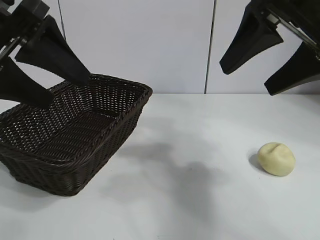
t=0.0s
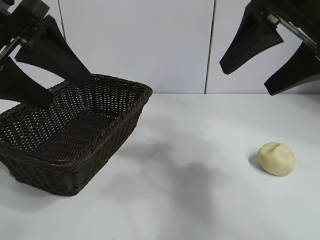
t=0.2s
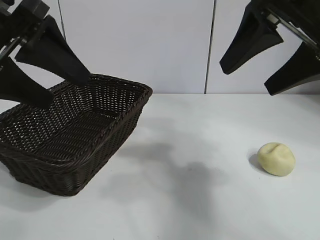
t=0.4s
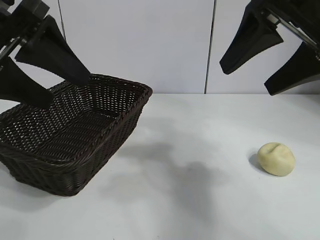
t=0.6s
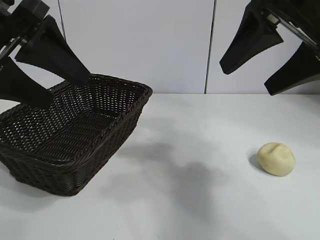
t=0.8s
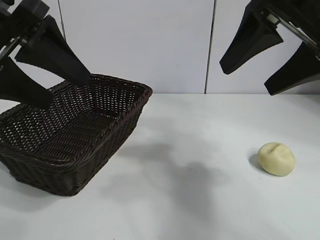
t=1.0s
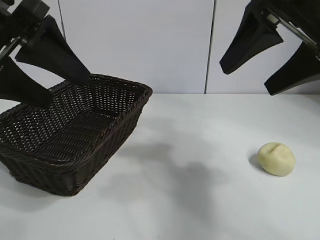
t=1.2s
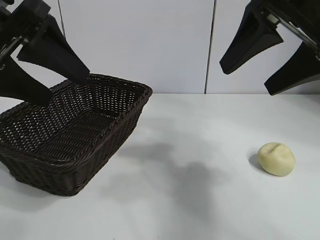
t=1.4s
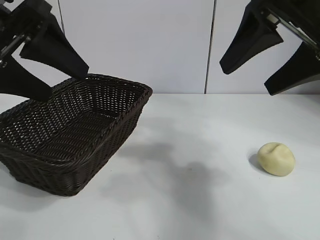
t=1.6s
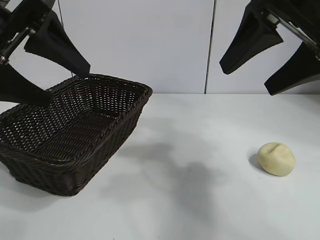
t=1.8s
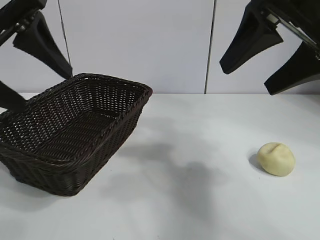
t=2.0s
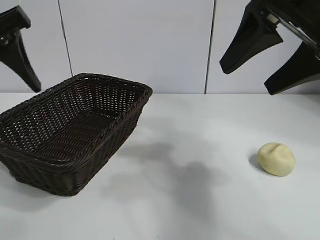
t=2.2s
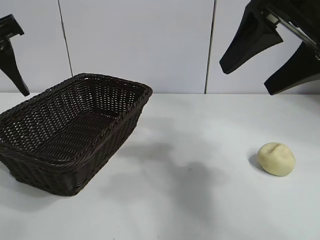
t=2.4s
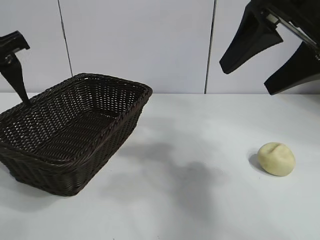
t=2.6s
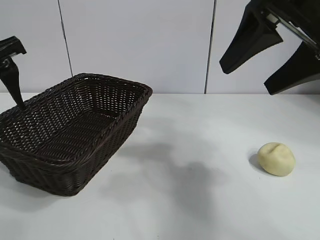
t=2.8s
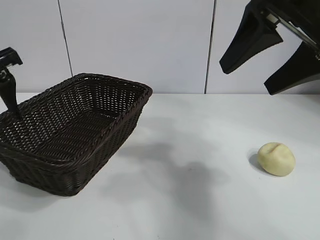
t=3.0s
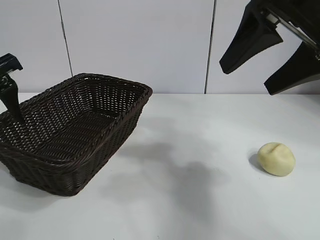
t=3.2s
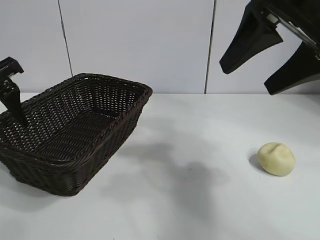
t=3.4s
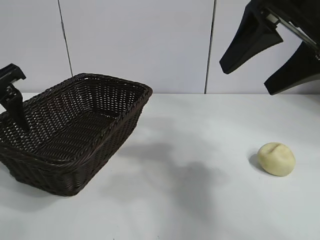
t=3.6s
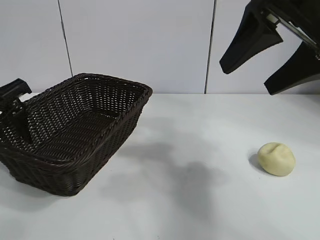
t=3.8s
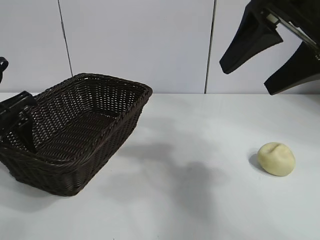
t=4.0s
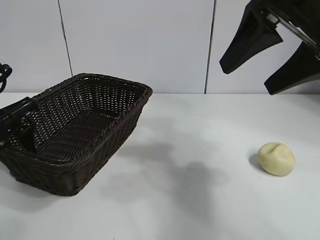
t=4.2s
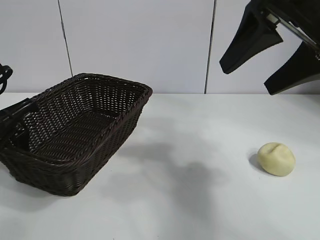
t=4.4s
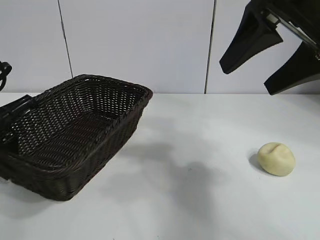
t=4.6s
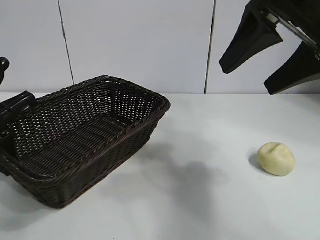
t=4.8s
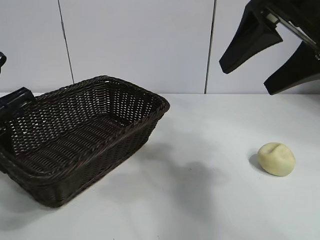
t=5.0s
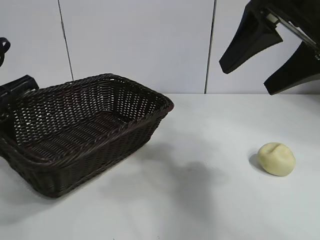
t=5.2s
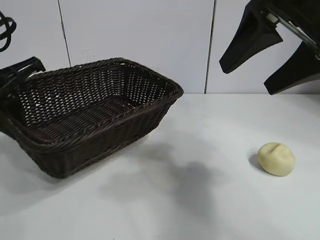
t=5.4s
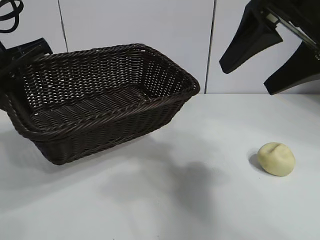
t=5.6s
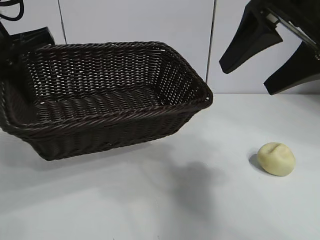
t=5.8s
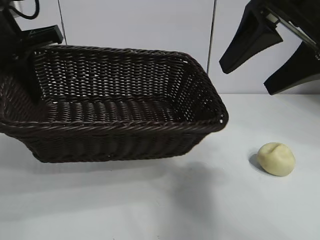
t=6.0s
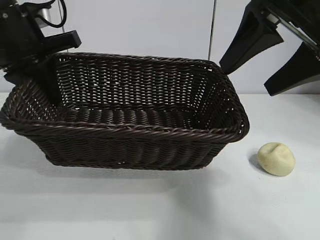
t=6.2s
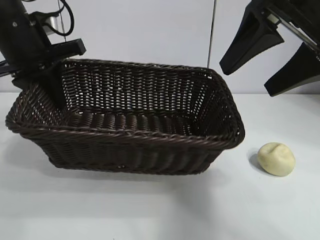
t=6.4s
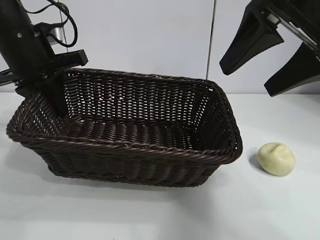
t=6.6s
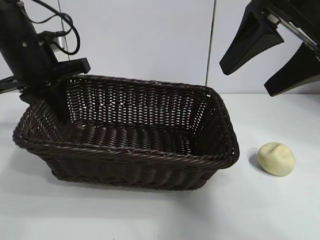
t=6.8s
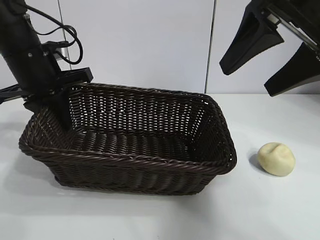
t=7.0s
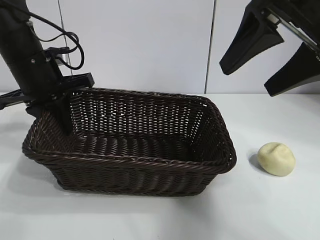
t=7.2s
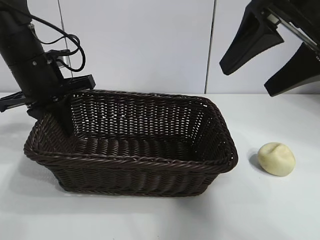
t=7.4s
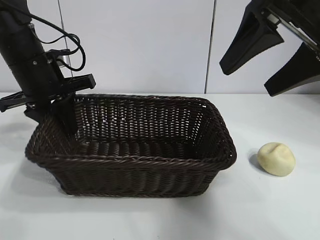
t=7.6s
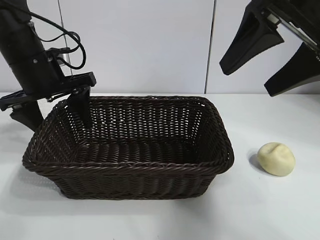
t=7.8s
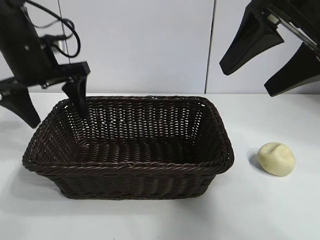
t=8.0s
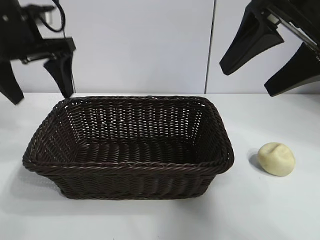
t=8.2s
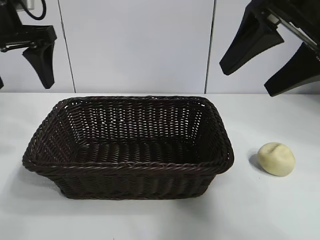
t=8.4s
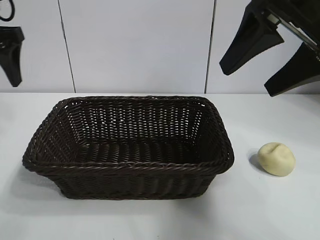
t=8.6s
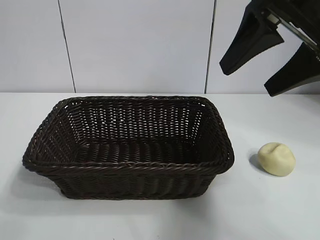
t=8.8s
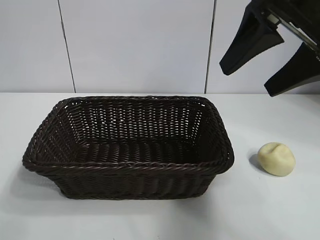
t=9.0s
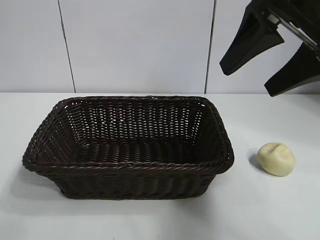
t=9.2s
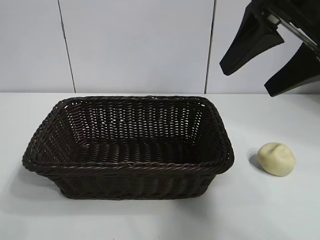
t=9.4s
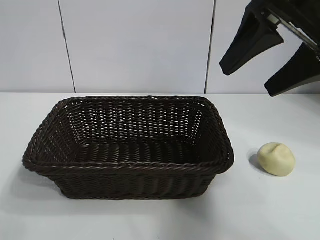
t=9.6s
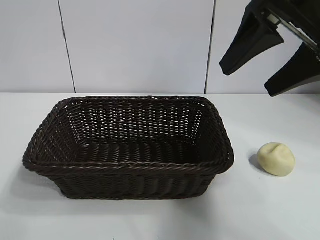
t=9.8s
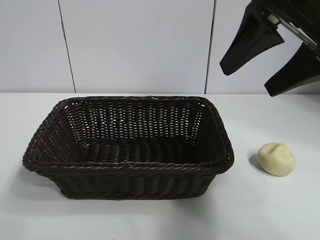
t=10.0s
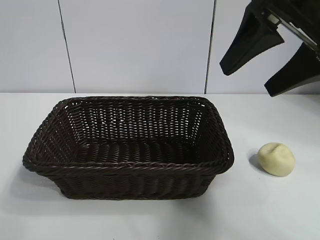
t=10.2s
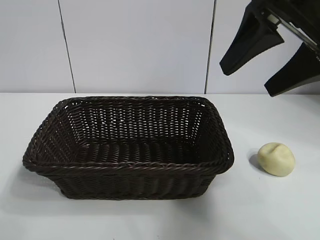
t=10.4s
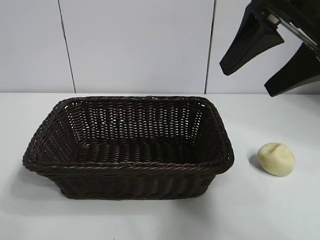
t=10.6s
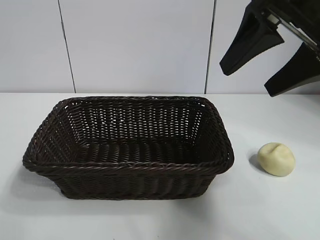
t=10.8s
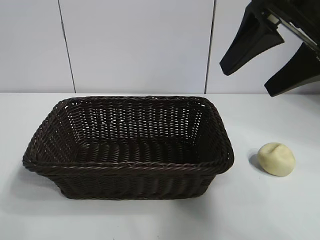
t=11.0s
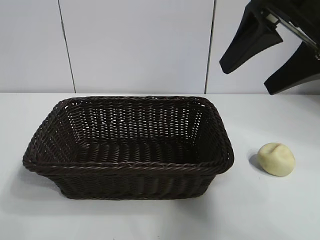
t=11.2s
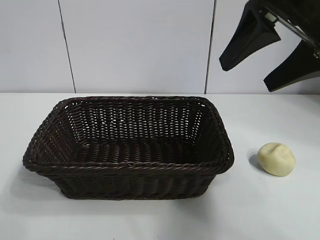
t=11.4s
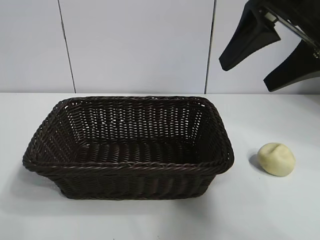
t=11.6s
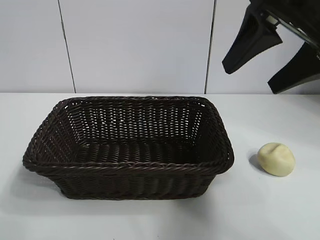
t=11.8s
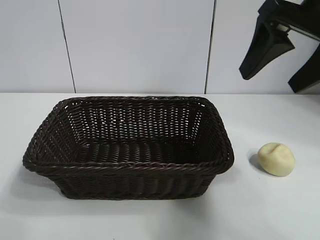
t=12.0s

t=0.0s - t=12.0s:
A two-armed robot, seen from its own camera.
Task of the whole recording: pick up the egg yolk pastry and put it into the basket.
Step, t=1.2s - t=4.6s: Grasp the basket with left gripper.
Step, t=4.8s - t=7.8s: Place the basket in the center of view with left gripper.

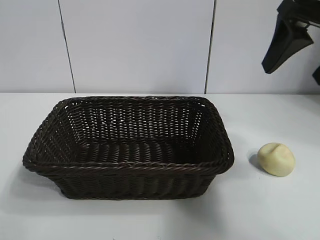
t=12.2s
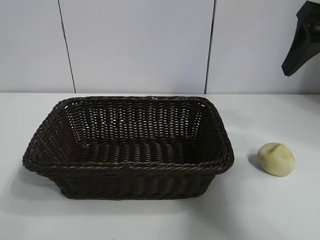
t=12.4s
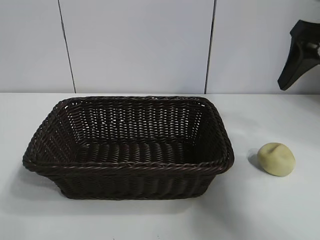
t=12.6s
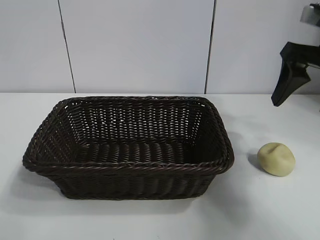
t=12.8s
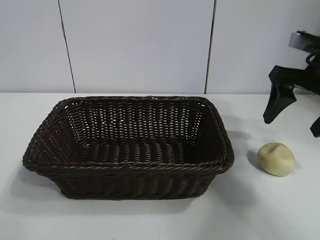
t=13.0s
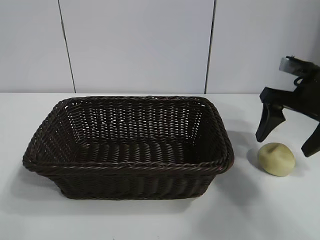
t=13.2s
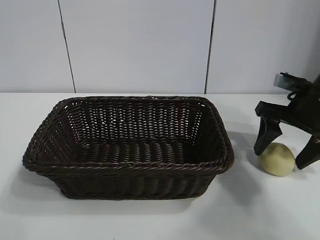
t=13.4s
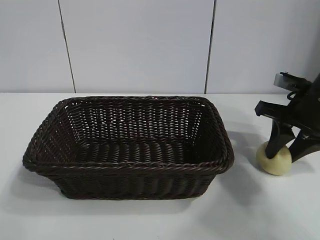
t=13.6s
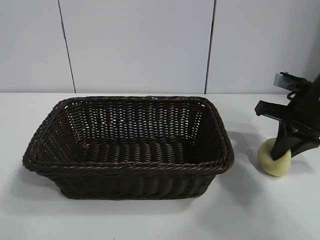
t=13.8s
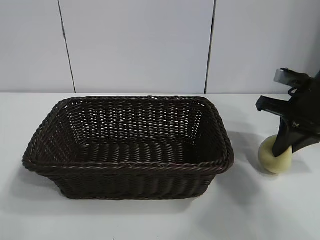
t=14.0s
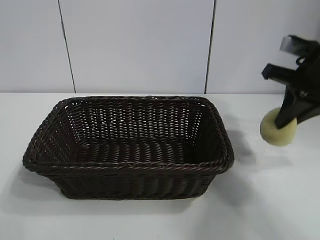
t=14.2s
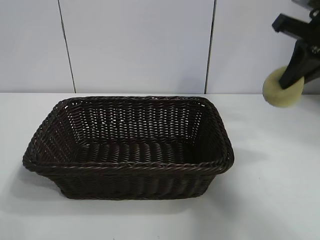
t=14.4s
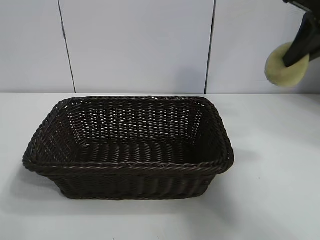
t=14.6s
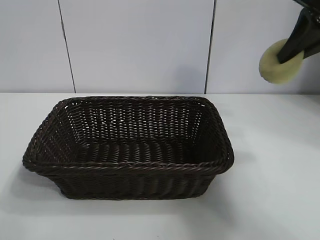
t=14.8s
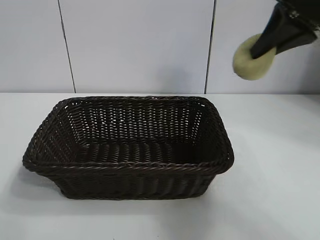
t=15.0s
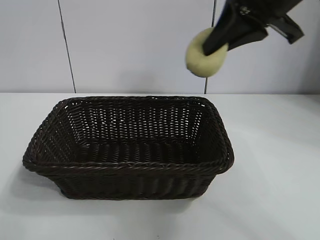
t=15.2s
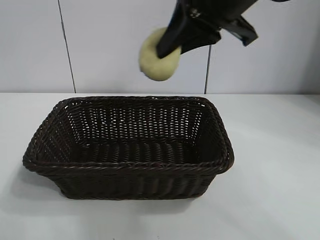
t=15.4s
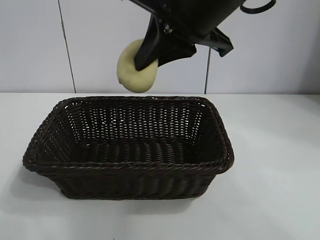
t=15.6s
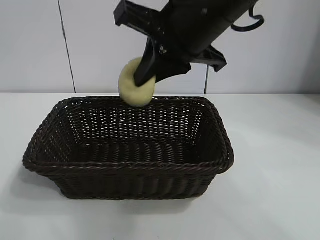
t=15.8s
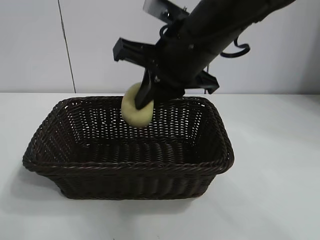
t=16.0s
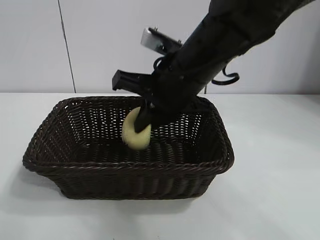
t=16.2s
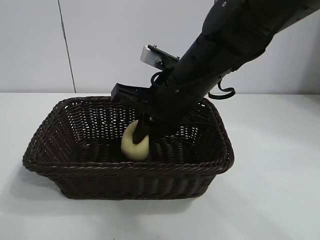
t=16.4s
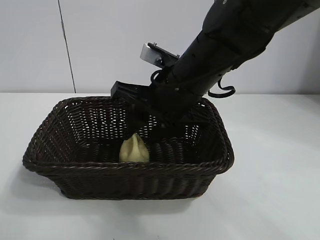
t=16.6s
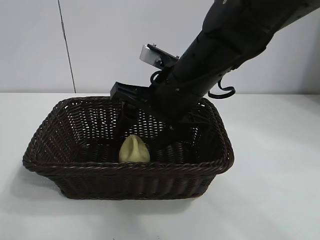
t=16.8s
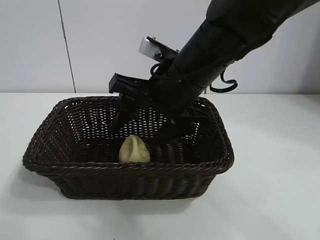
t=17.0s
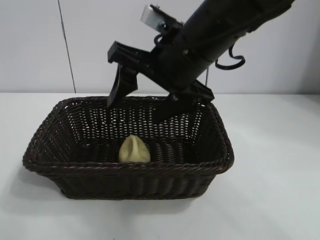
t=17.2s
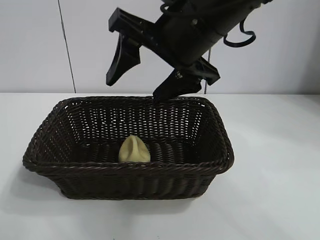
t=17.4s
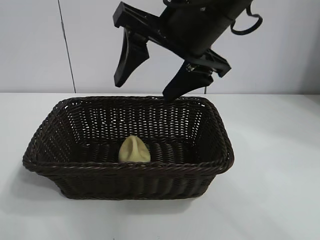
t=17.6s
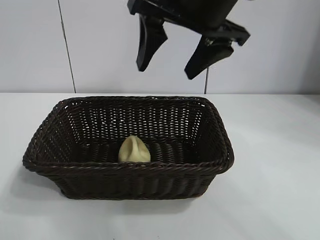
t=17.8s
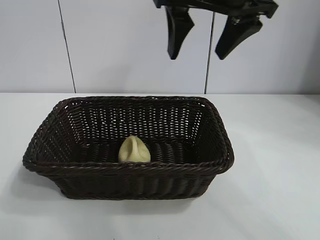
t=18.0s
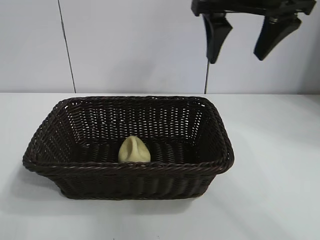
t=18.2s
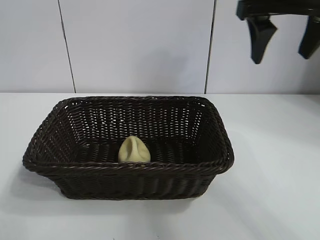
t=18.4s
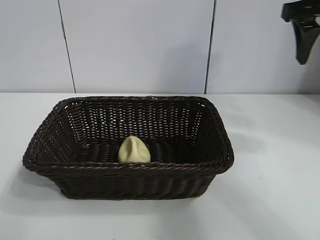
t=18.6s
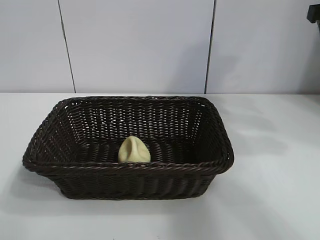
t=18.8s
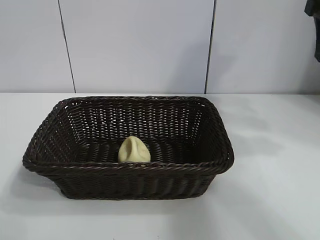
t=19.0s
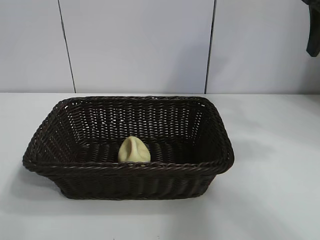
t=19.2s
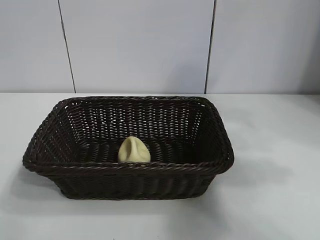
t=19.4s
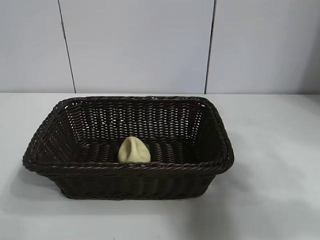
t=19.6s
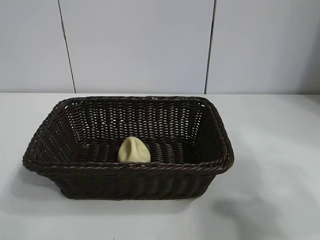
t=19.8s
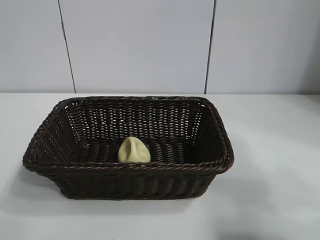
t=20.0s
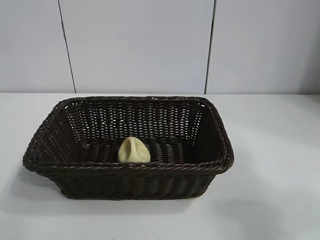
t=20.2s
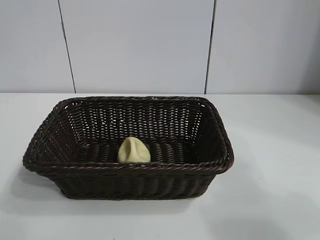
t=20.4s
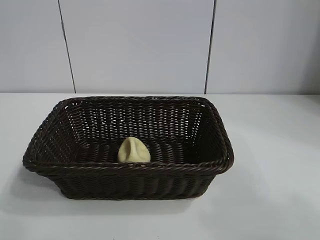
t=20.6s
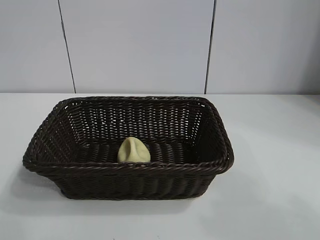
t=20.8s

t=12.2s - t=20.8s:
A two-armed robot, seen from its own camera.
Task of the whole recording: pick up the egg yolk pastry and put it into the basket.
Step, t=14.0s - t=16.8s: Place the egg yolk pastry in the basket with right gripper.

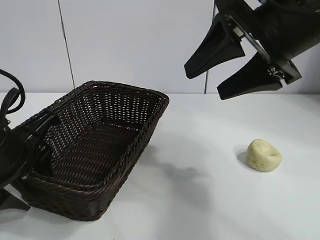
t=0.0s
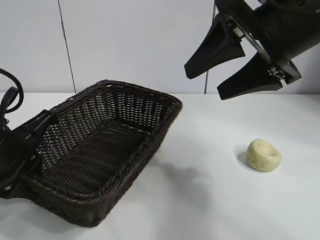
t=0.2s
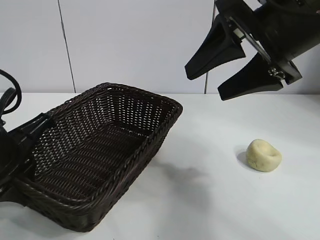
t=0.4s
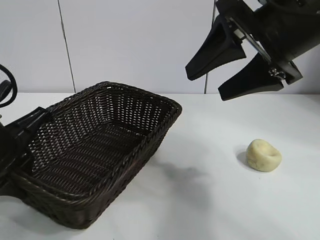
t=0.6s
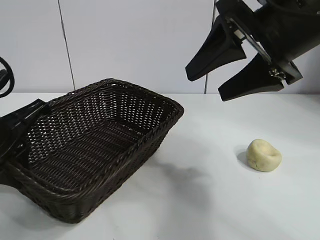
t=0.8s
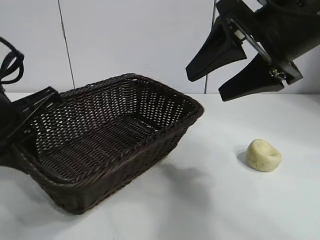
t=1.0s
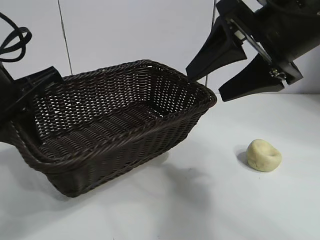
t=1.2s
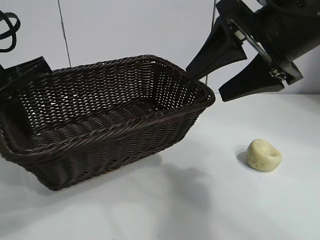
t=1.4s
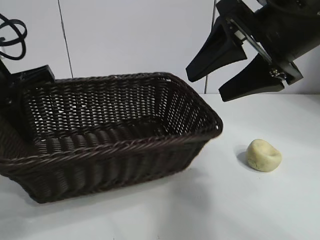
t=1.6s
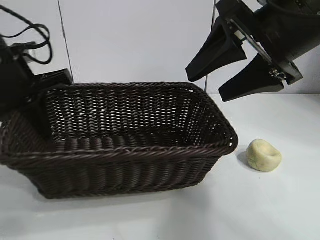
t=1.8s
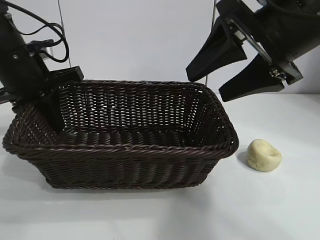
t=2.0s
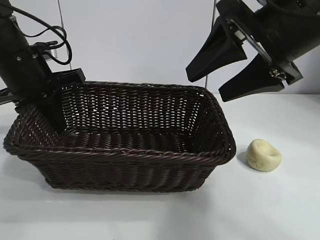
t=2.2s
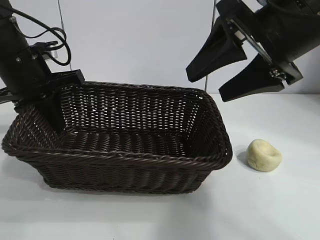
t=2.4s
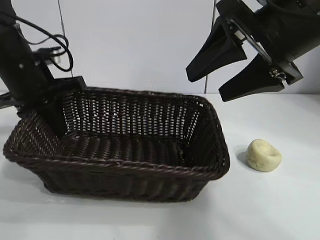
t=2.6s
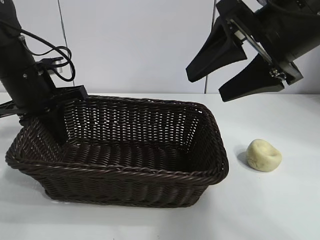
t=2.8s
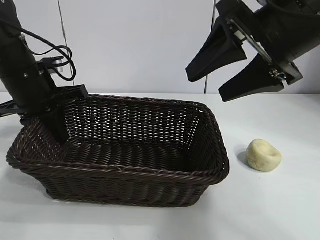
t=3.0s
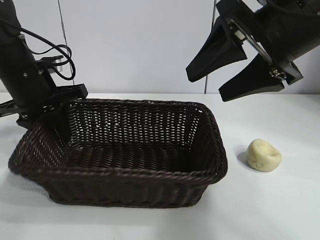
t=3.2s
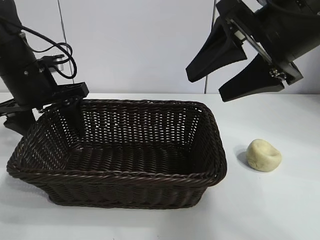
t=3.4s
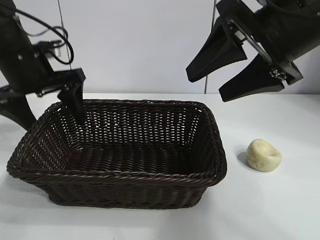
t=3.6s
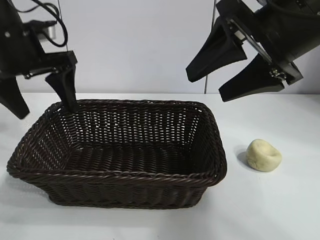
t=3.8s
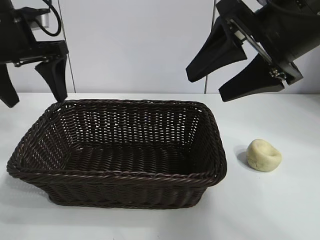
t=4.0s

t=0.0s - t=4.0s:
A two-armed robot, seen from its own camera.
Task of the whole recording: pick up the egg yolk pastry and put it into the basket.
Step, t=0.4s - t=3.4s: Place the basket in the center of view with left gripper.
